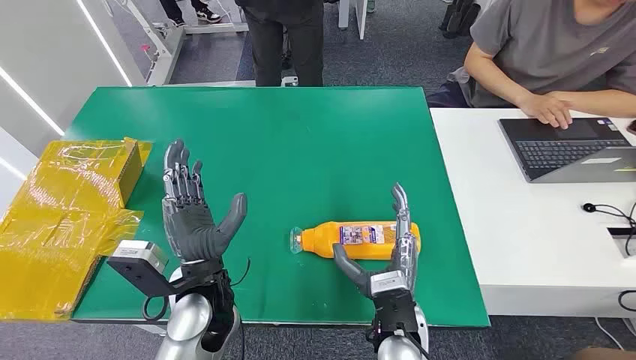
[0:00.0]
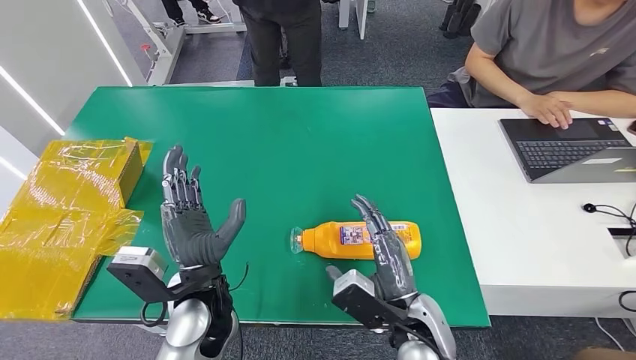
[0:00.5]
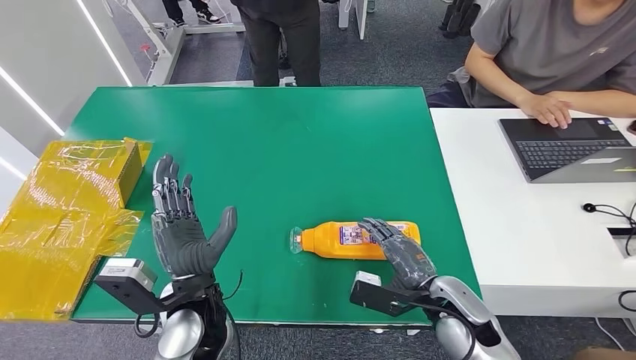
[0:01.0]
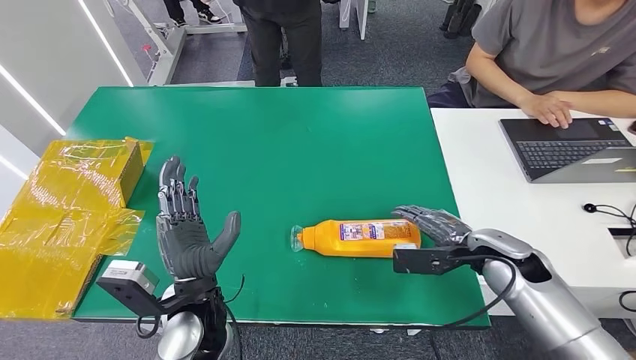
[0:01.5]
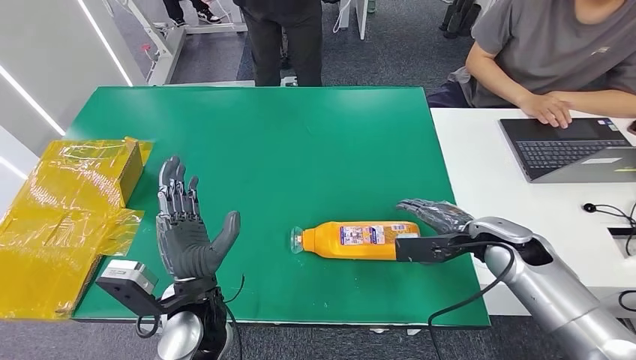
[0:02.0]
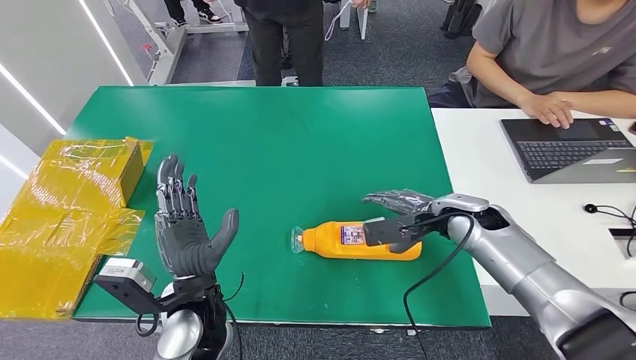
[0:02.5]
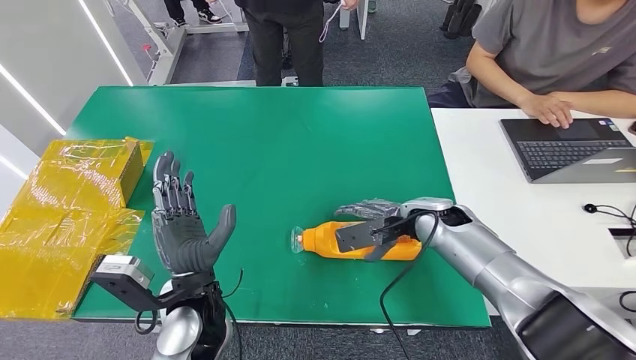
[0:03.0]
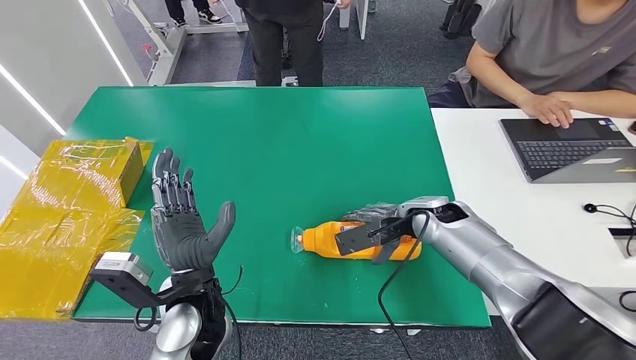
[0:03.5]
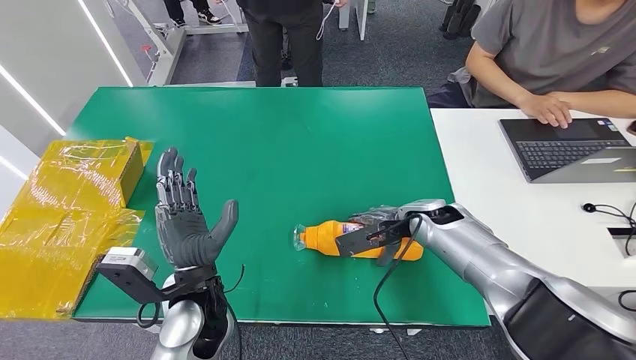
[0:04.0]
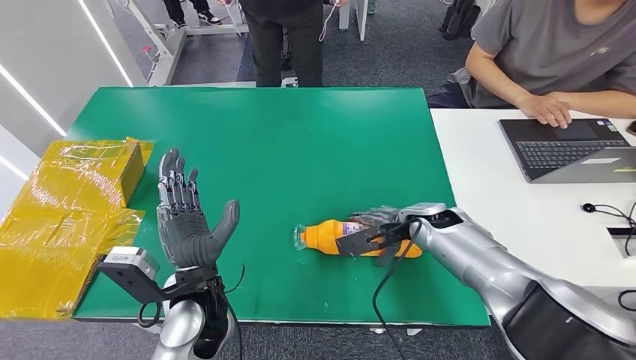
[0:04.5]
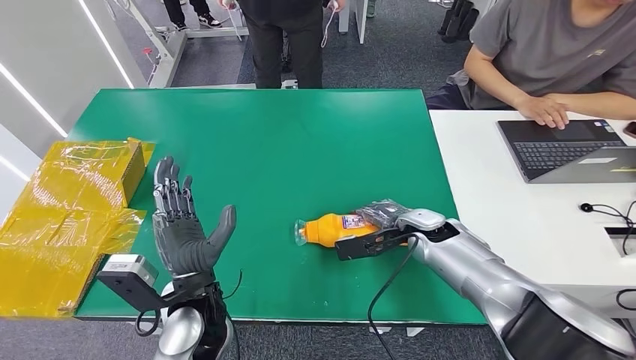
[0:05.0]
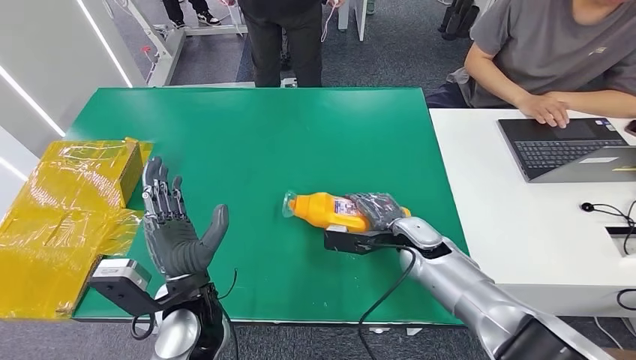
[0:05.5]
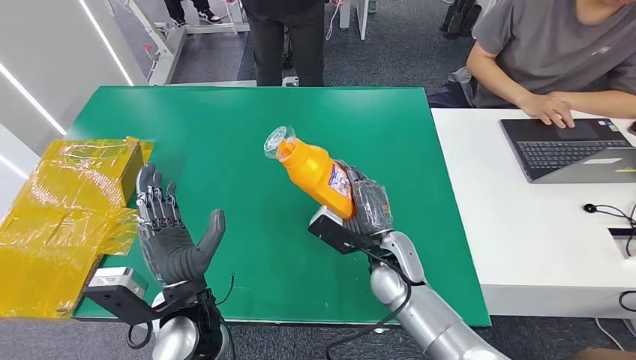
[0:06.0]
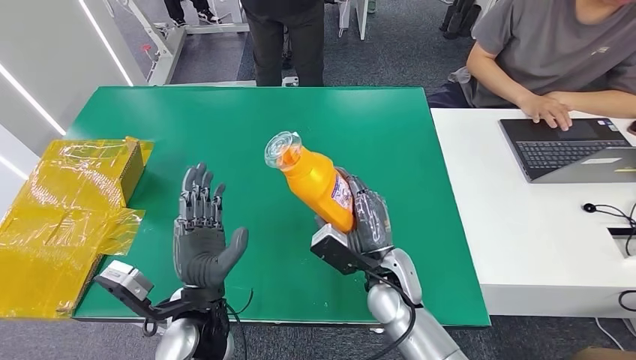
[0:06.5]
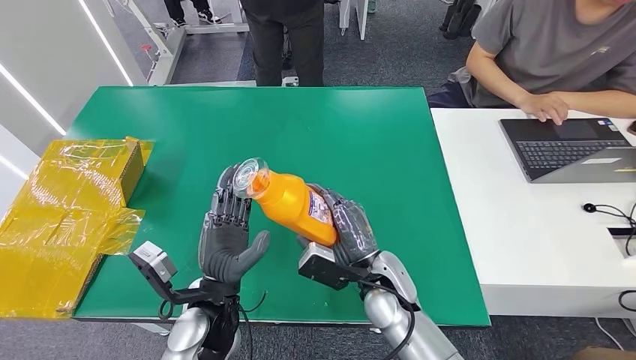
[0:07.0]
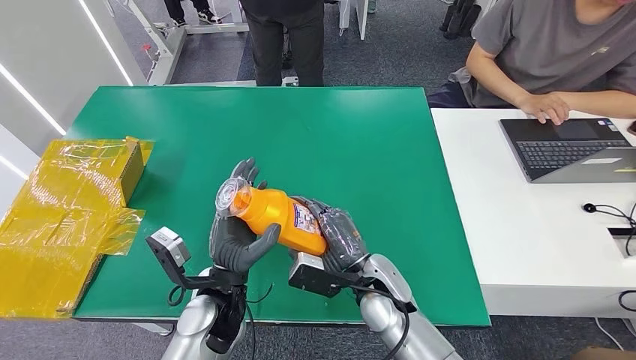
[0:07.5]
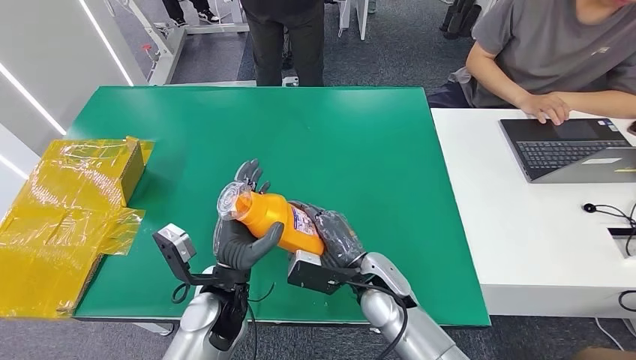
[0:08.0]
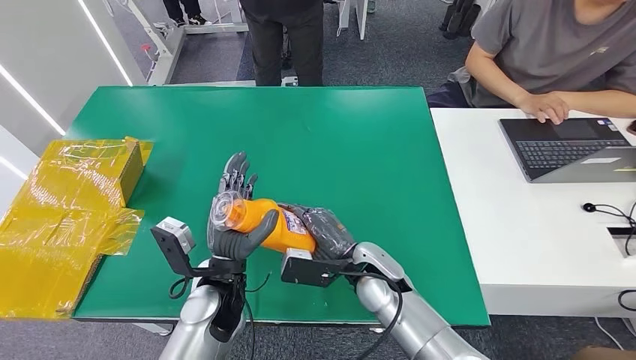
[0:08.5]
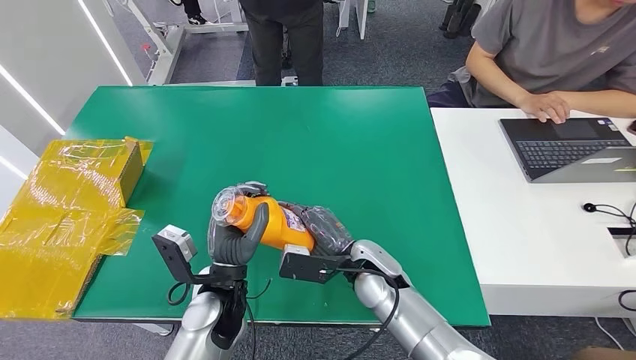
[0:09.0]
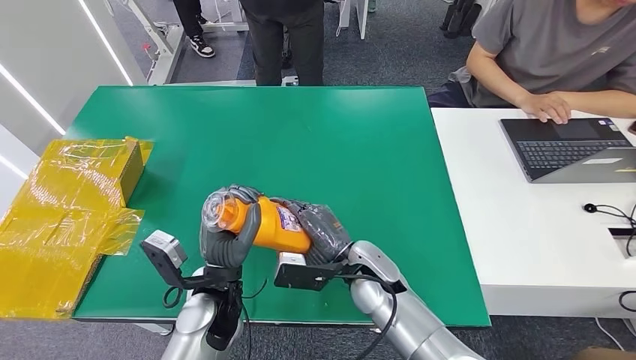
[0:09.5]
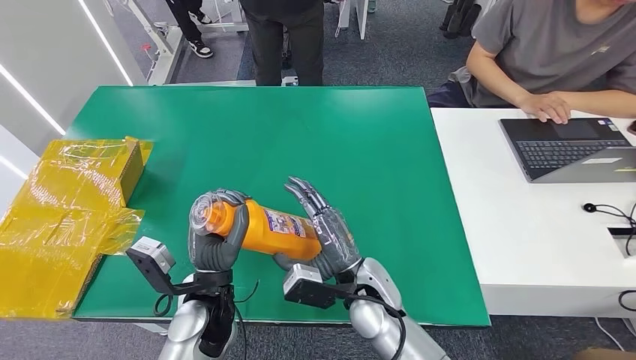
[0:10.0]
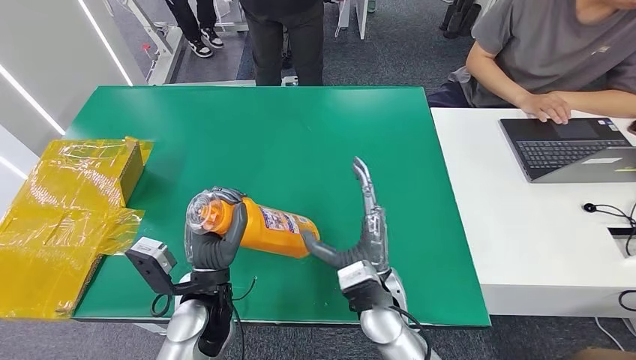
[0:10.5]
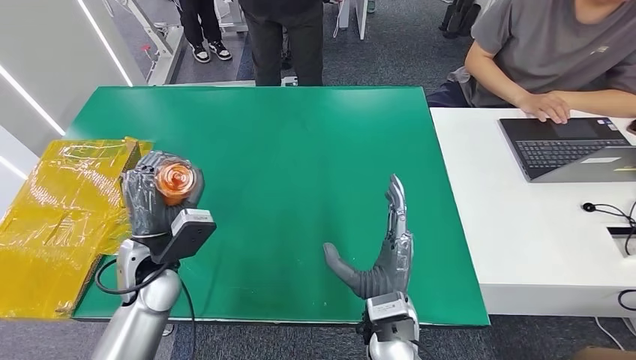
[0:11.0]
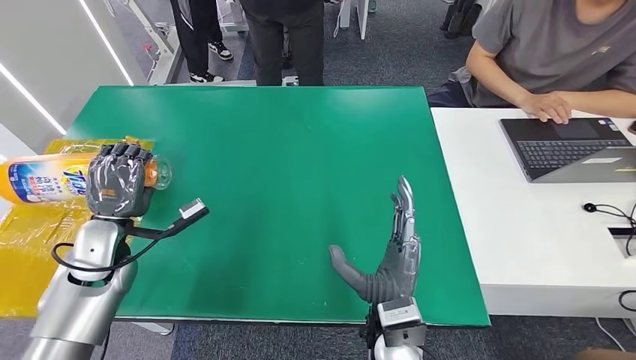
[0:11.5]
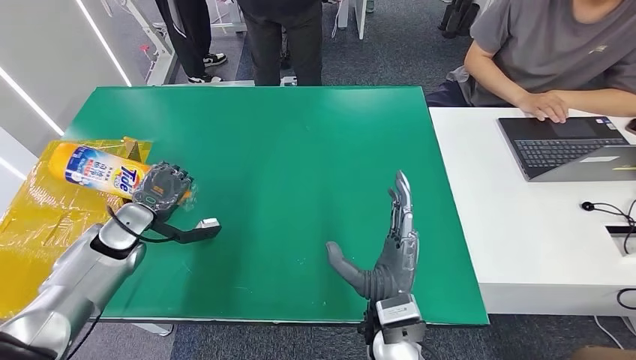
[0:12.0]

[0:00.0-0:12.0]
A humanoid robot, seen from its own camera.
Step, 0:00.0 to 0:06.0: Pick up the bottle from the table.
0:02.0 to 0:04.0: The right hand travels to the left and forward by approximately 10 cm.
0:04.0 to 0:06.0: The right hand shifts approximately 15 cm to the left and backward.
0:06.0 to 0:08.0: The left hand ends up about 5 cm from where it was.
0:08.0 to 0:10.0: The hands make only small movements.

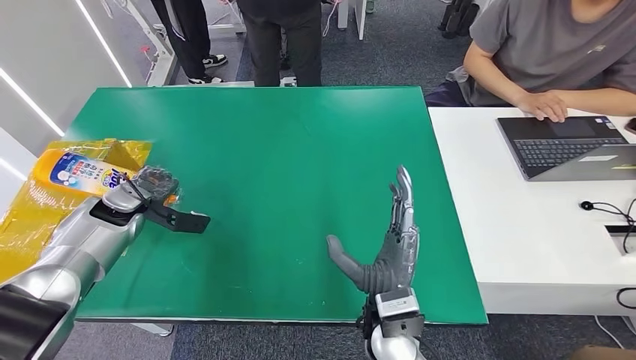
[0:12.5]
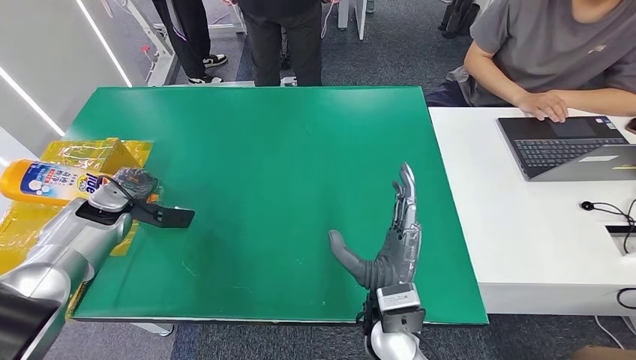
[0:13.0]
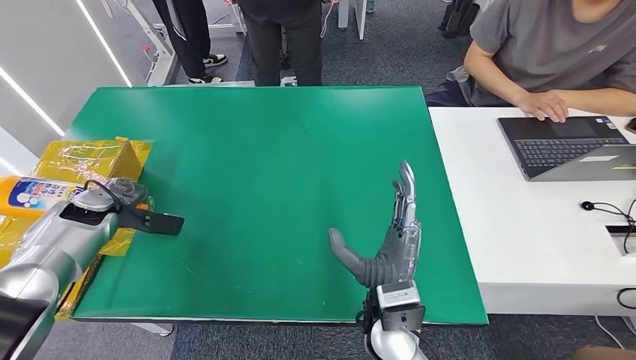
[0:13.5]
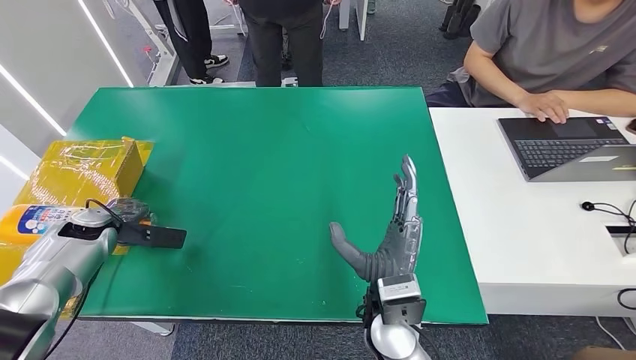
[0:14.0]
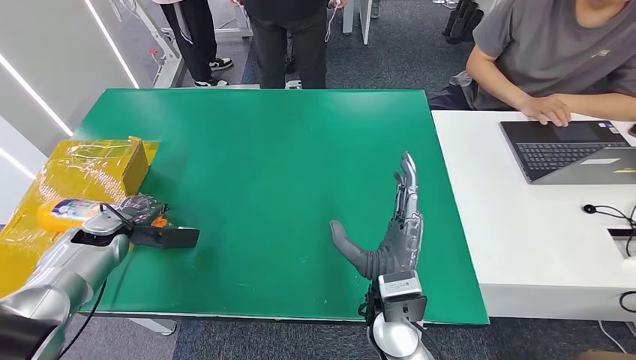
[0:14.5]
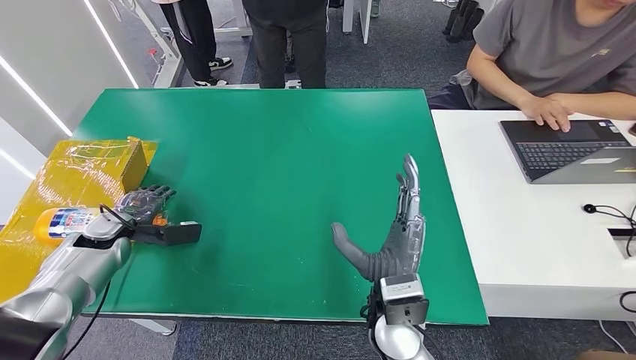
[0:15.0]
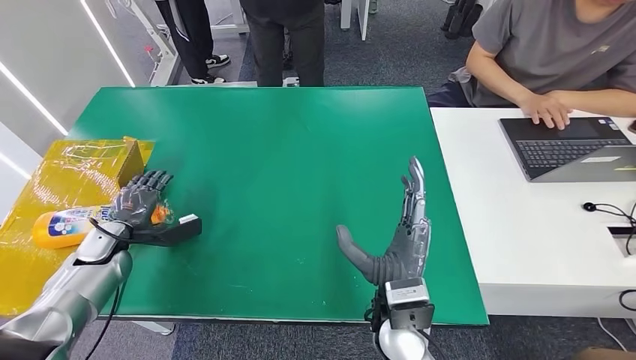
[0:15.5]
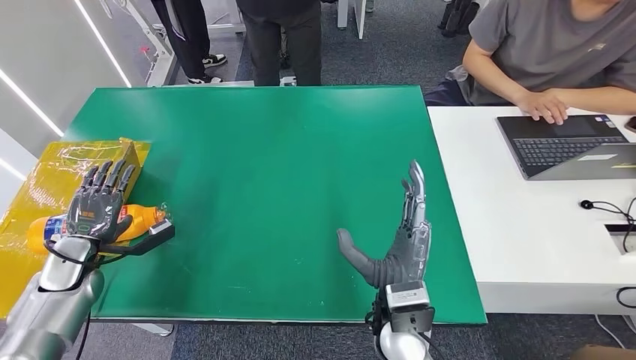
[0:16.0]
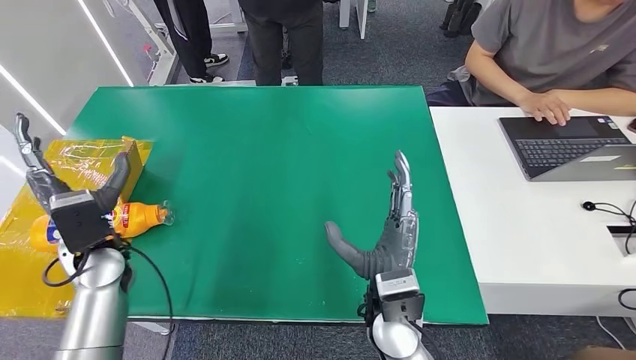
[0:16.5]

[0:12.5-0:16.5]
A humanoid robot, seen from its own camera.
Step, 0:12.5 to 0:16.5: Turn the bottle to the front side.
